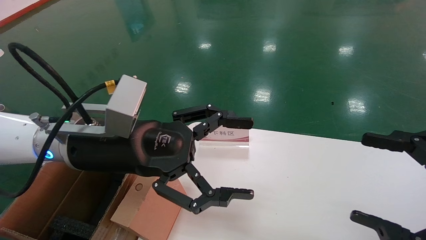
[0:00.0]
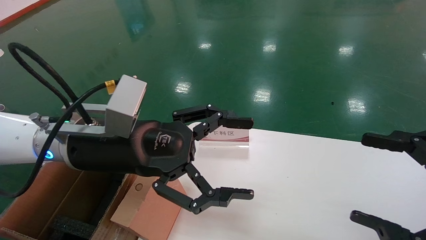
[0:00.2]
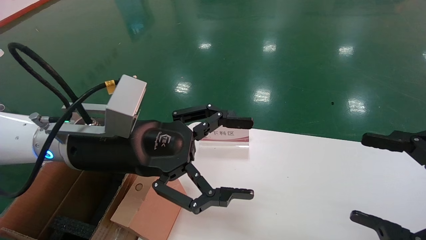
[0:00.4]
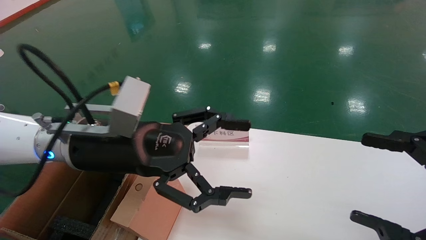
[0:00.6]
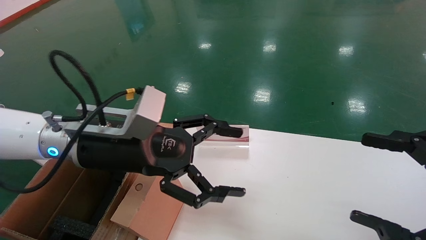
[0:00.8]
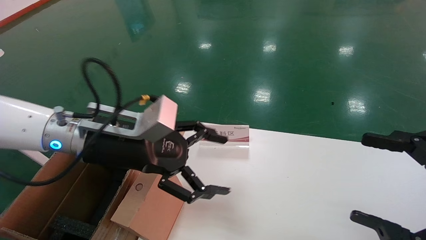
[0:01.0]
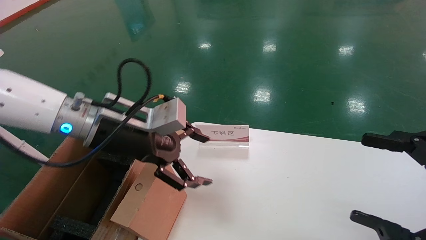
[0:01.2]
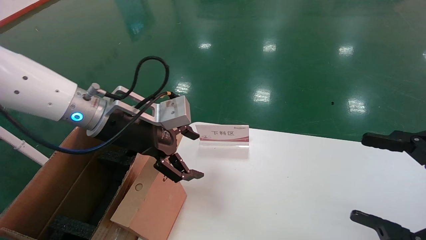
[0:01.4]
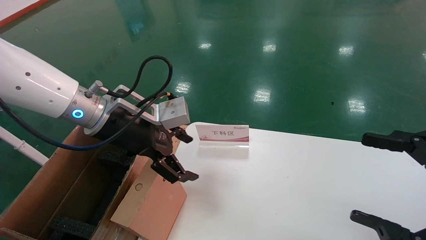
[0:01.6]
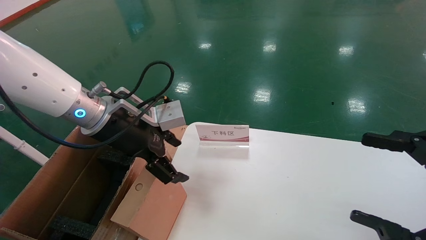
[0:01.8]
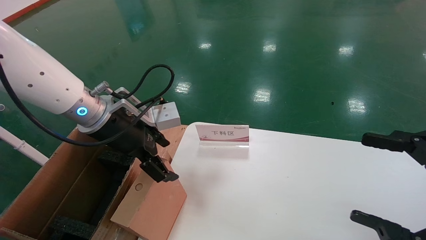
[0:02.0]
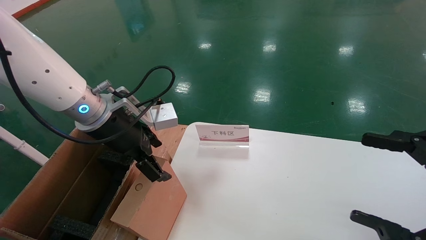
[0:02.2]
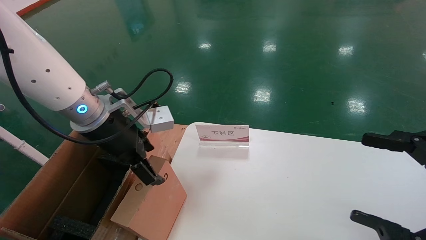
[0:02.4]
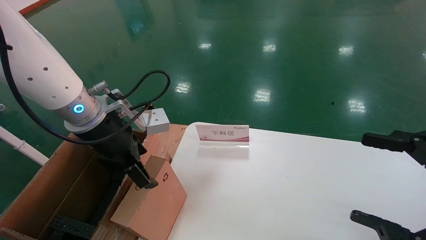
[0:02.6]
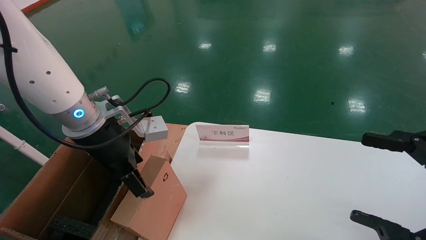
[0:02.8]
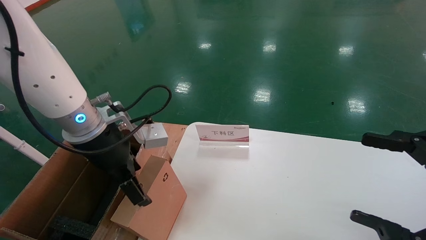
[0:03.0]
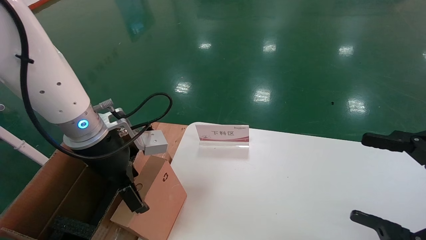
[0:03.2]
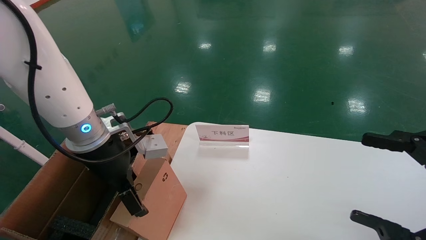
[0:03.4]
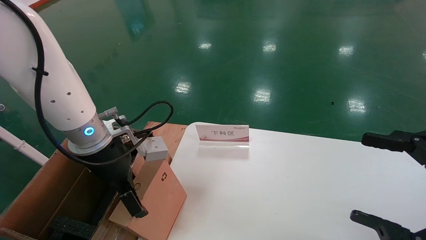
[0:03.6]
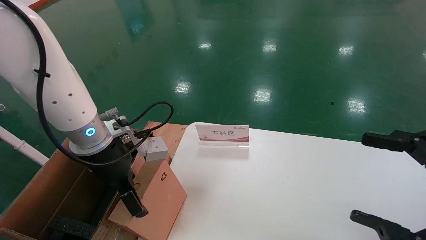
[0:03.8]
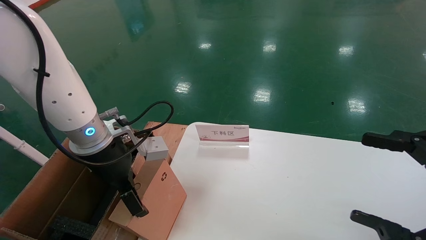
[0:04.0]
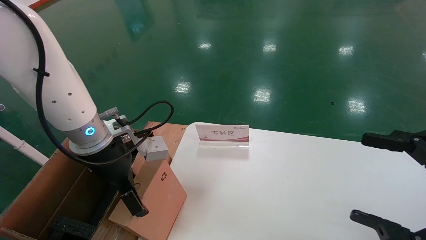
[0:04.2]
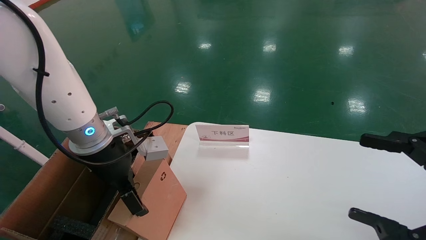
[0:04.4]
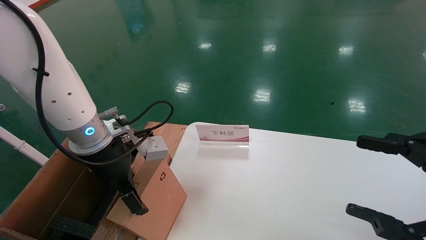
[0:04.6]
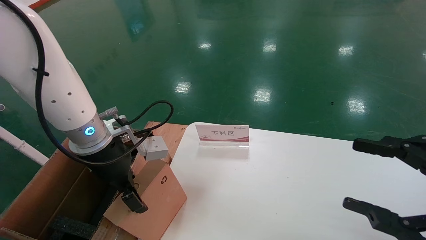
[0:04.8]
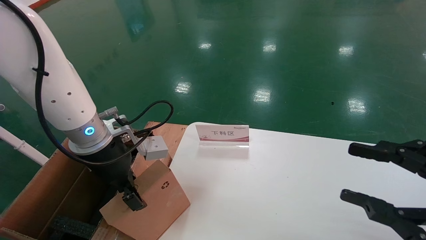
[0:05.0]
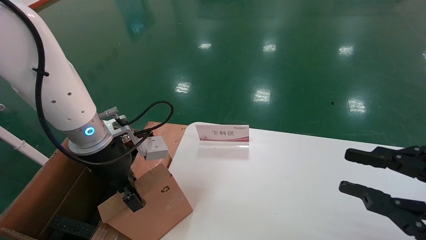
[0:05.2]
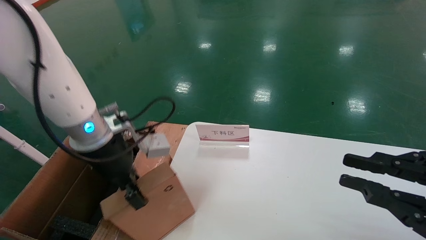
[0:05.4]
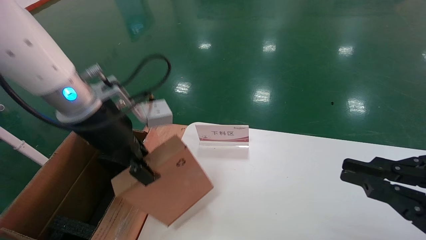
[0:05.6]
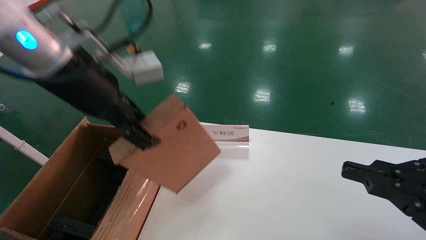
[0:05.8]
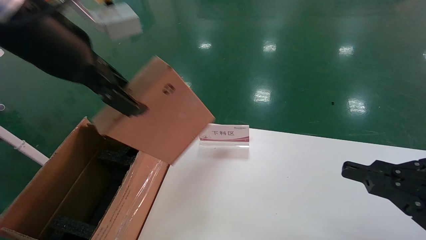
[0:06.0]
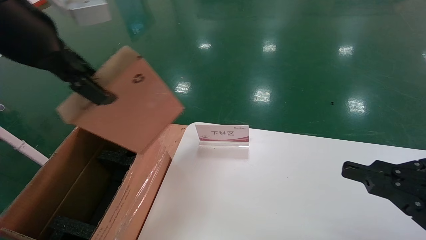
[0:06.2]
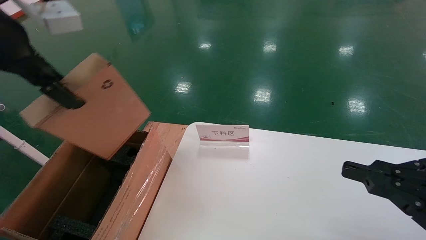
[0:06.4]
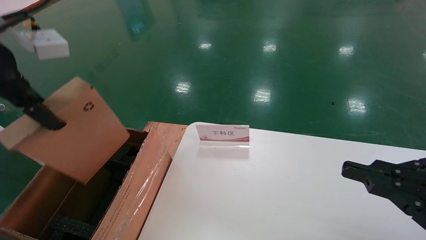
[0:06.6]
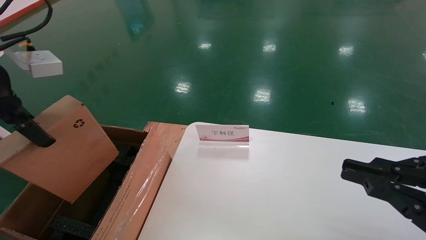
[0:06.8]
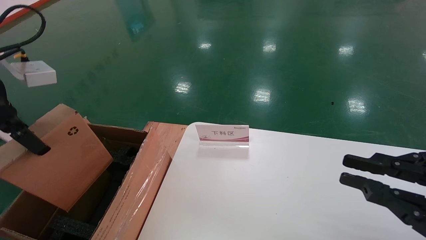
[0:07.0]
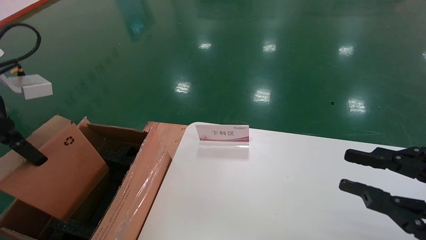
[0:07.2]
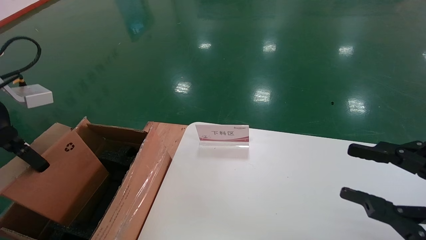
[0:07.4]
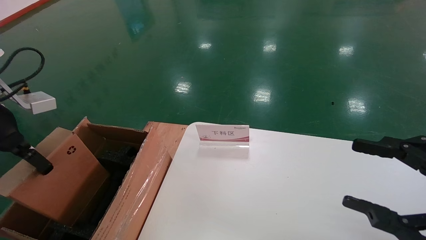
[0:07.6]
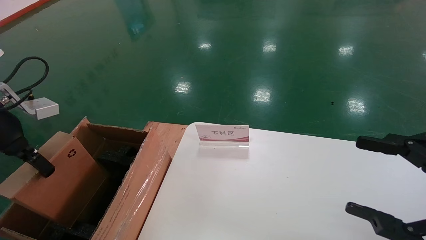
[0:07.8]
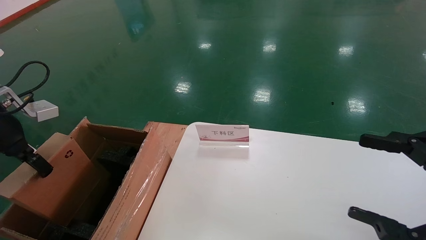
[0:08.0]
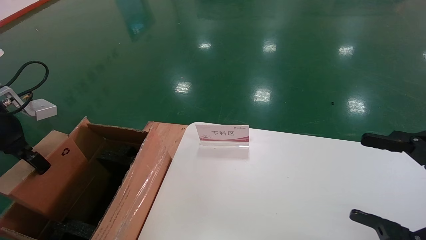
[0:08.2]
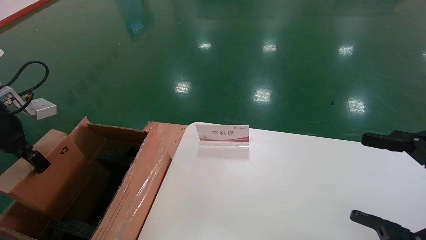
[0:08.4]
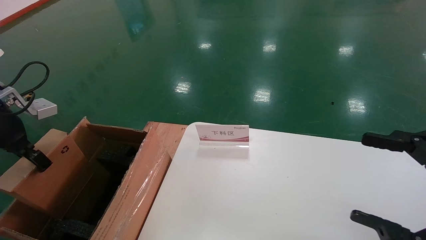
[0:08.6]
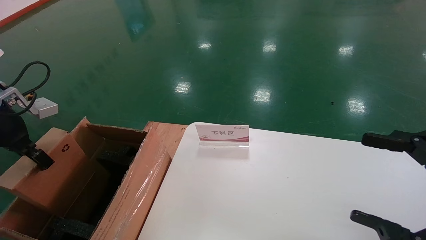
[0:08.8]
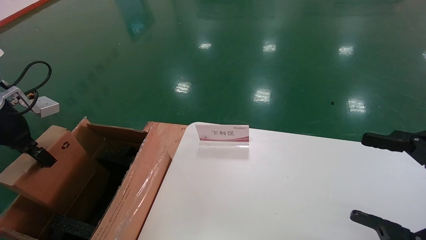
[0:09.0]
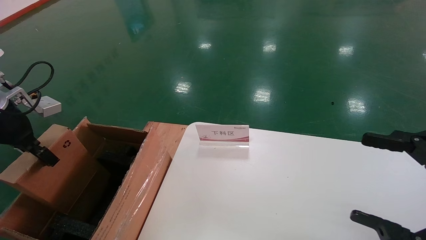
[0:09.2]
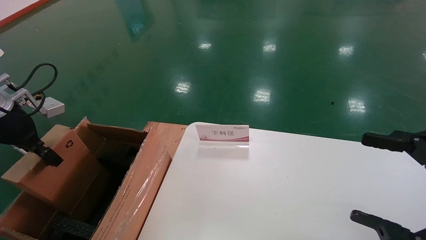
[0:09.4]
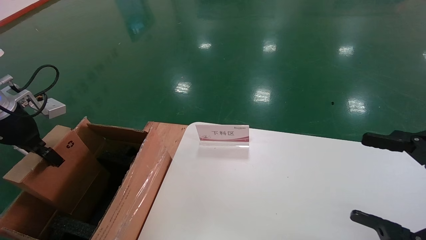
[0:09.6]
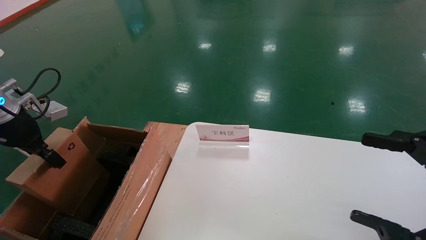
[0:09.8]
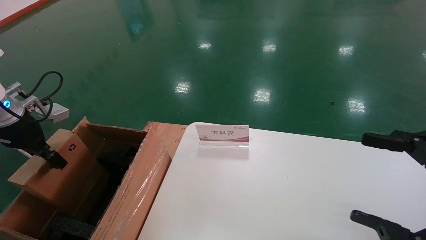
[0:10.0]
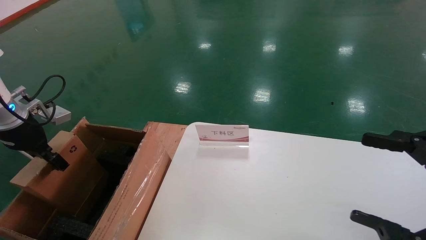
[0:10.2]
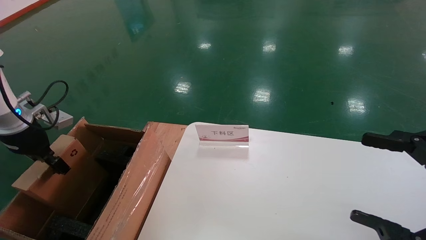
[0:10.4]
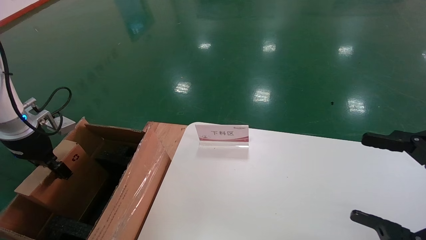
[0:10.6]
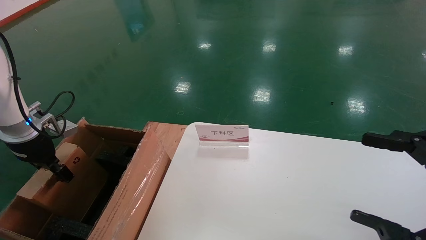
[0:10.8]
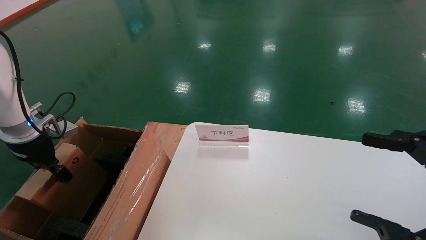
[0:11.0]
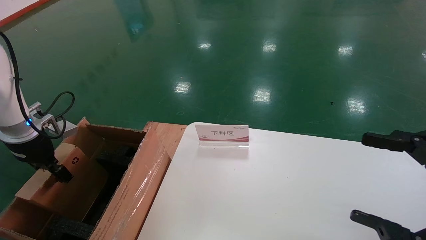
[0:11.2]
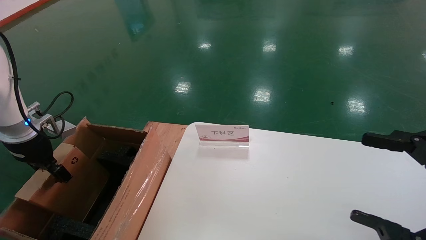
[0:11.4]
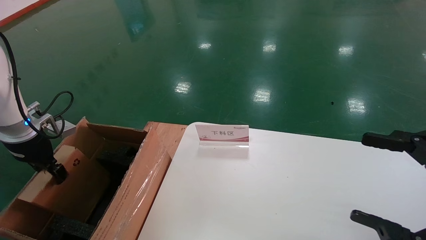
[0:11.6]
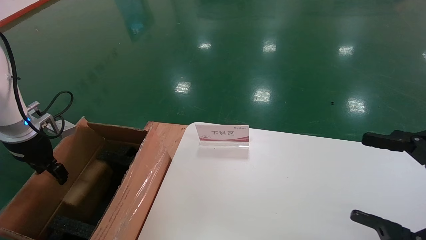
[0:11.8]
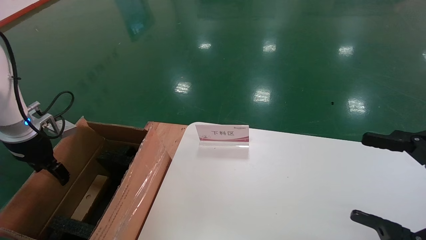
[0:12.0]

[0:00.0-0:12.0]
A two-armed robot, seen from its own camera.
Task of the whole recording: pick up the small cardboard box and load it into the large cardboard box.
Step, 0:00.8 to 0:05.4: Pick up the mouse and power cord box.
Step, 0:05.6 to 0:11.8: Place the mouse and power cord box into the case.
0:00.0 to 0:01.6: The left gripper heads forward, covering about 5 cm.
0:03.0 to 0:04.4: The grippers stay close to where they were, moving slightly.
0:04.4 to 0:06.0: The left gripper shifts about 20 cm upward, and closes its fingers. The right gripper closes.
0:06.0 to 0:07.6: The left gripper shifts roughly 20 cm to the left and downward. The right gripper opens its fingers.
0:07.6 to 0:09.0: The right gripper opens up; the left gripper ends up about 5 cm from where it was.
0:09.0 to 0:10.4: The left gripper goes some 5 cm downward.
0:10.4 to 0:12.0: The left gripper opens its fingers.

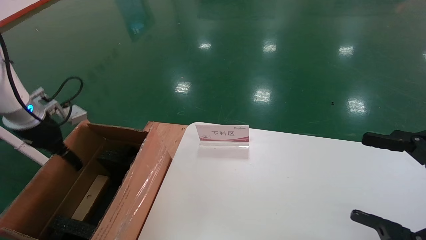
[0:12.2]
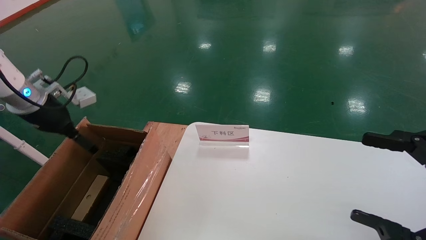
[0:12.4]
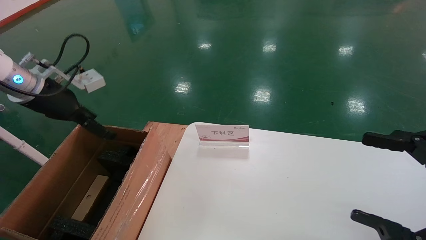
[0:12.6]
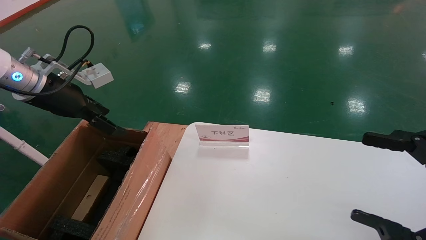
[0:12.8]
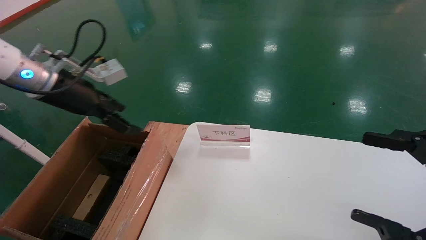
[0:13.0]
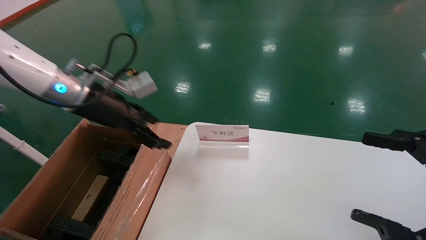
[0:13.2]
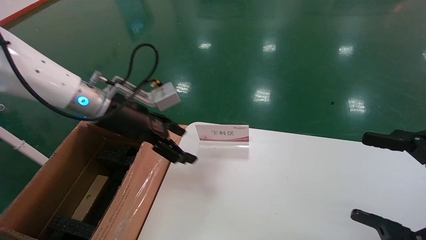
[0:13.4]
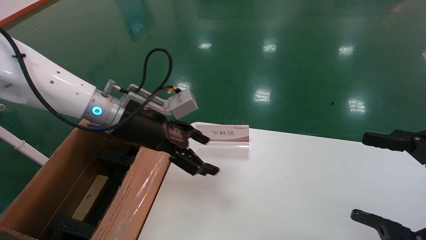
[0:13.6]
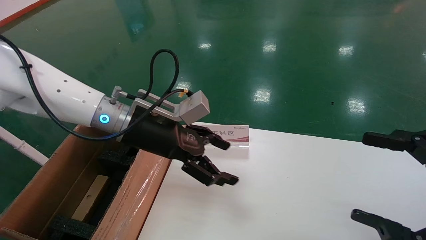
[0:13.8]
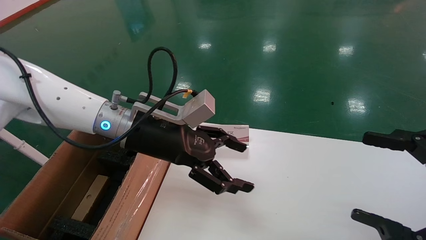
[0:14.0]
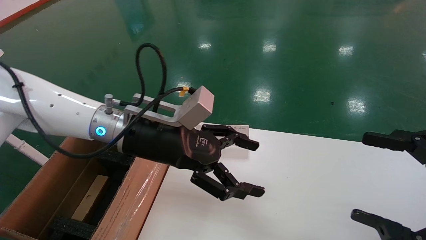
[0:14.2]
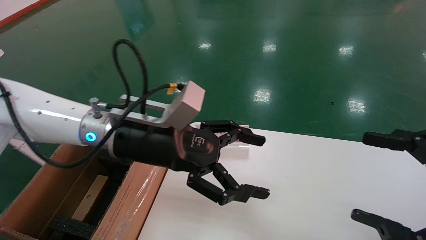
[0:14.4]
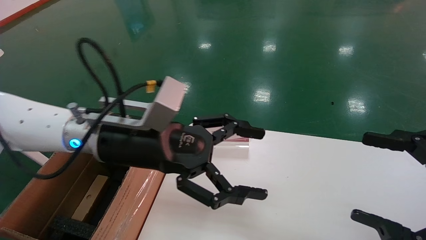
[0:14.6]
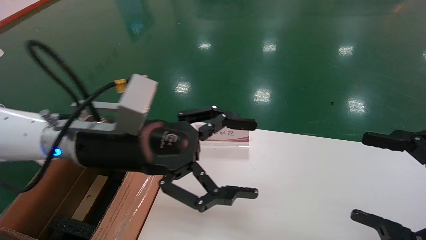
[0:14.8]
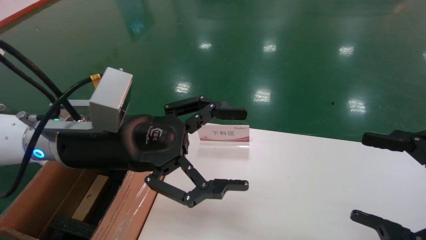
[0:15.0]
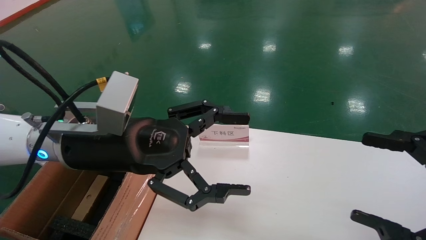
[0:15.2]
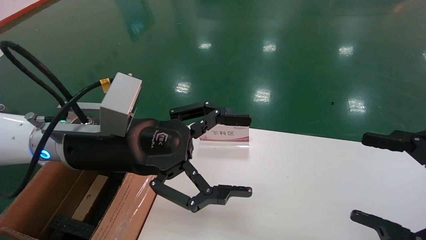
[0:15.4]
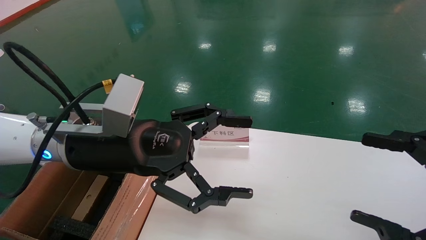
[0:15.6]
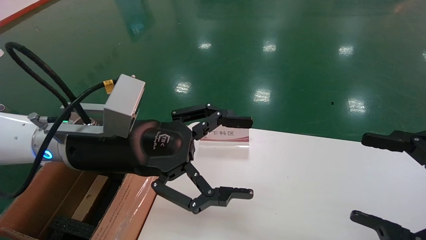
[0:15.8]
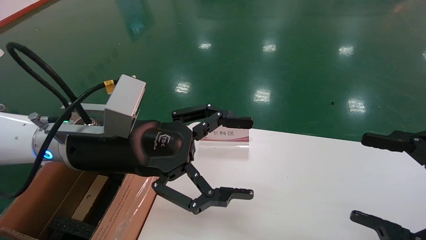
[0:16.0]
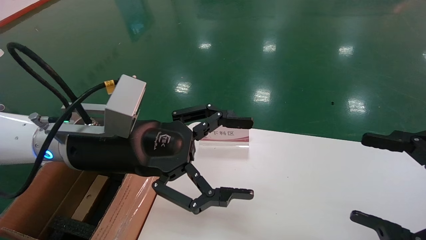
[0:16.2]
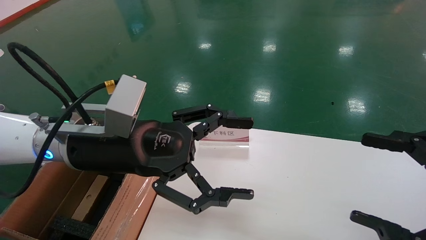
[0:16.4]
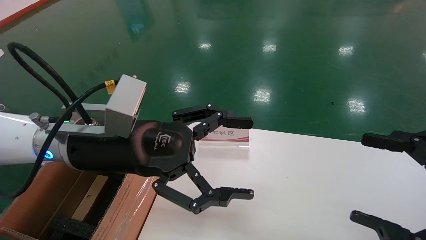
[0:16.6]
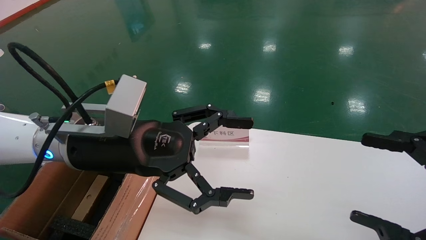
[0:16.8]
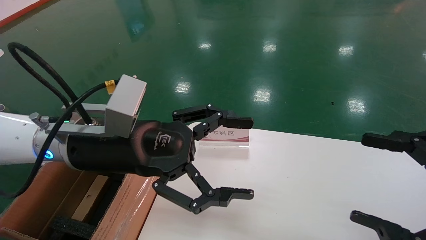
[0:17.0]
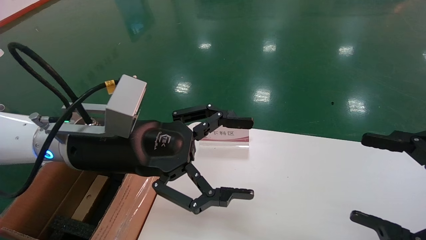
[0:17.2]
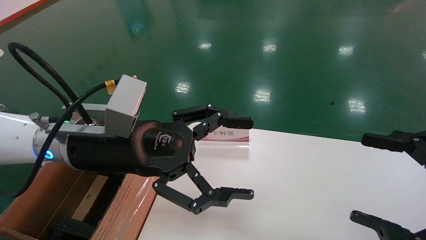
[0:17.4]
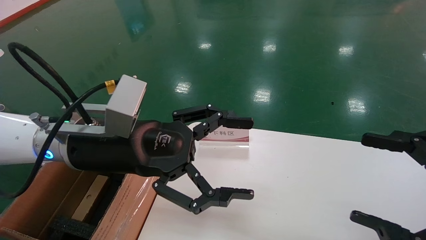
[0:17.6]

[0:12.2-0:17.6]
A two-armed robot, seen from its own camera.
Task of the whole recording: pick up the small cardboard box and load it into the large cardboard box.
0:12.2 to 0:13.6: The left gripper goes about 25 cm to the right.
0:13.6 to 0:15.0: The left gripper heads backward, covering roughly 10 cm.
0:15.0 to 0:17.6: The two grippers keep their place.
